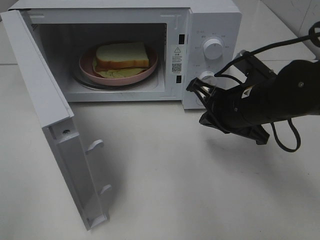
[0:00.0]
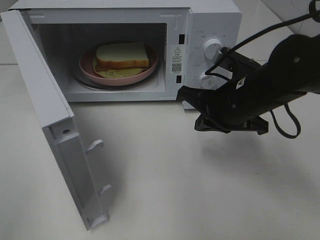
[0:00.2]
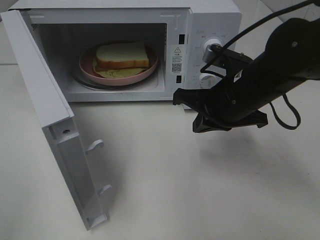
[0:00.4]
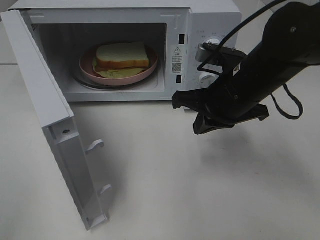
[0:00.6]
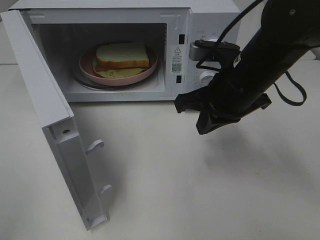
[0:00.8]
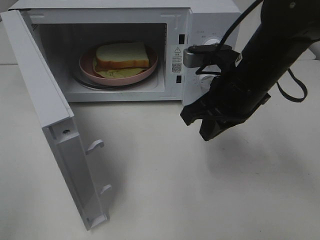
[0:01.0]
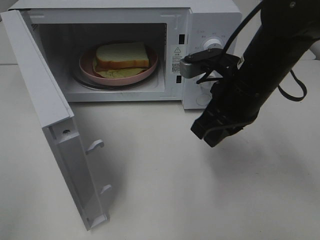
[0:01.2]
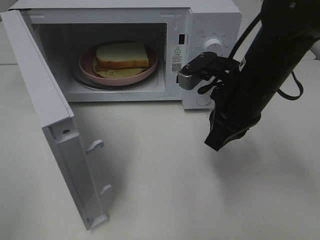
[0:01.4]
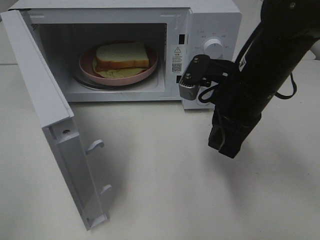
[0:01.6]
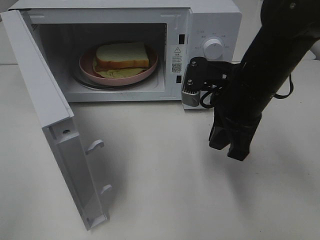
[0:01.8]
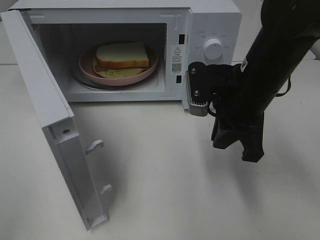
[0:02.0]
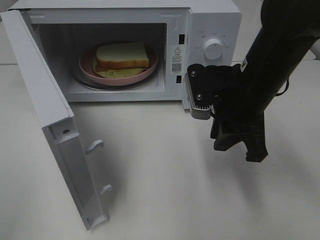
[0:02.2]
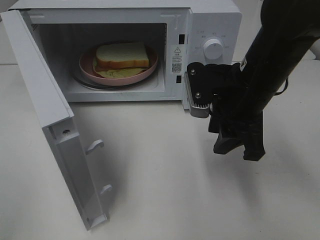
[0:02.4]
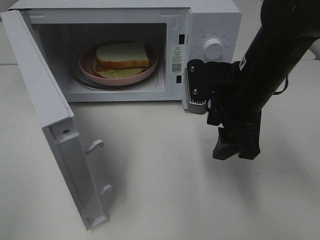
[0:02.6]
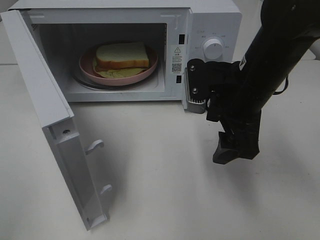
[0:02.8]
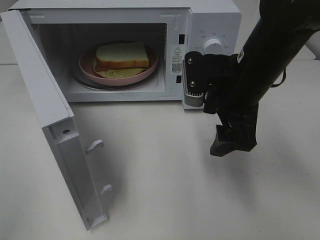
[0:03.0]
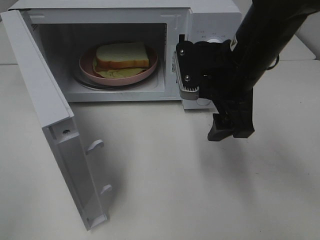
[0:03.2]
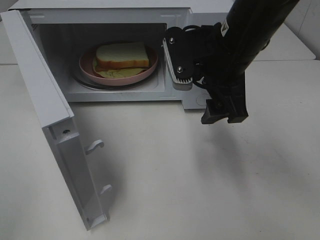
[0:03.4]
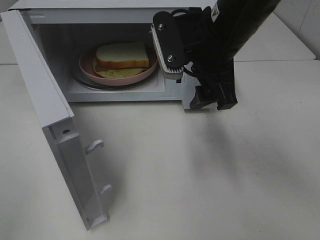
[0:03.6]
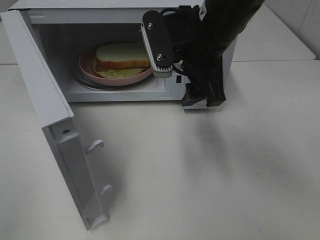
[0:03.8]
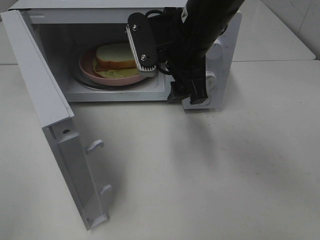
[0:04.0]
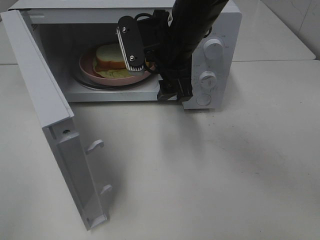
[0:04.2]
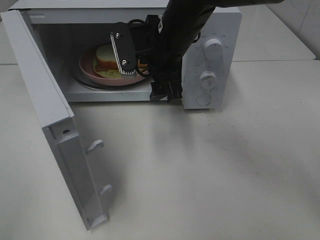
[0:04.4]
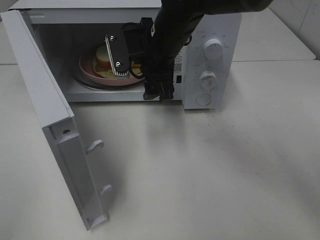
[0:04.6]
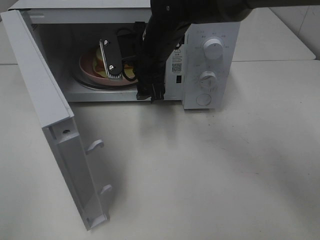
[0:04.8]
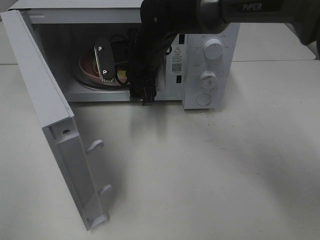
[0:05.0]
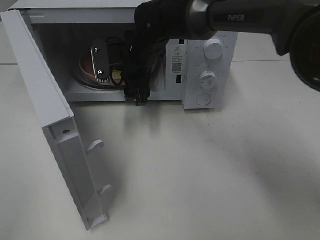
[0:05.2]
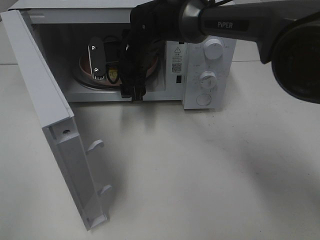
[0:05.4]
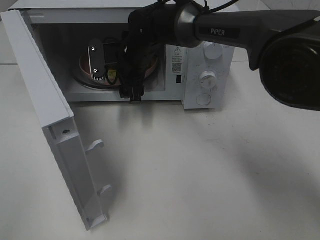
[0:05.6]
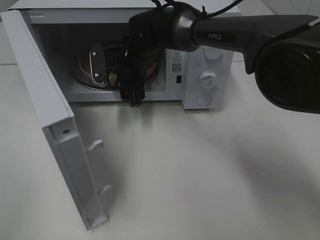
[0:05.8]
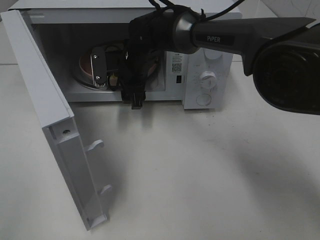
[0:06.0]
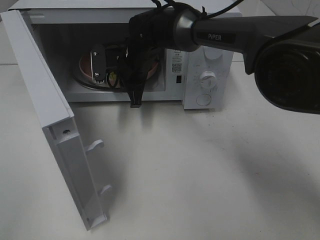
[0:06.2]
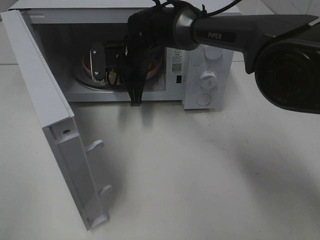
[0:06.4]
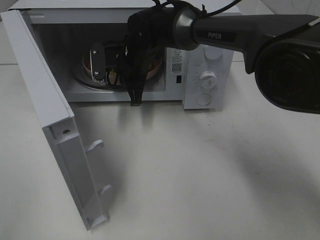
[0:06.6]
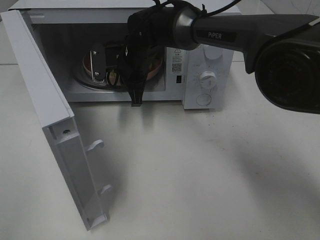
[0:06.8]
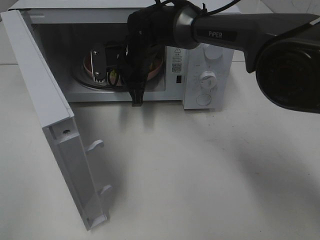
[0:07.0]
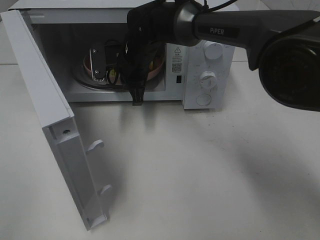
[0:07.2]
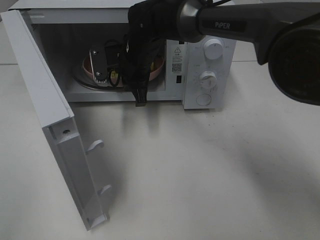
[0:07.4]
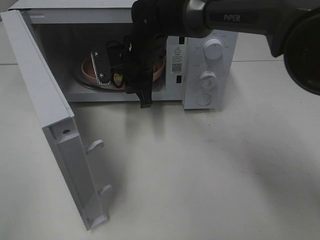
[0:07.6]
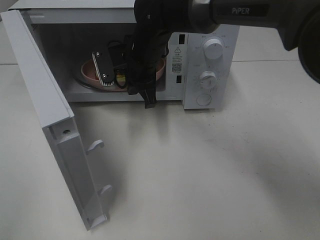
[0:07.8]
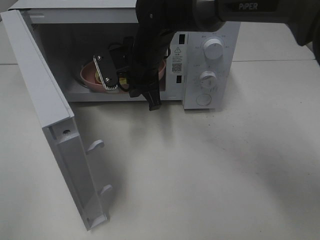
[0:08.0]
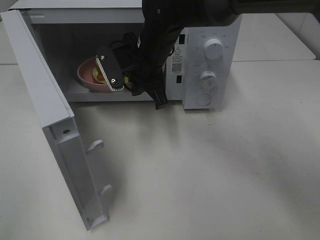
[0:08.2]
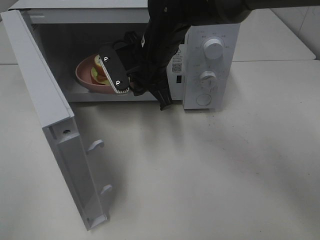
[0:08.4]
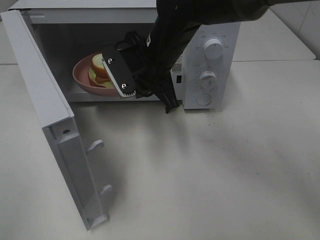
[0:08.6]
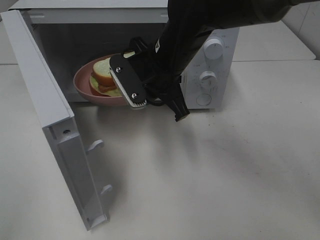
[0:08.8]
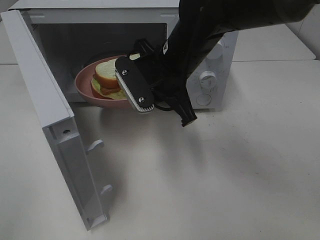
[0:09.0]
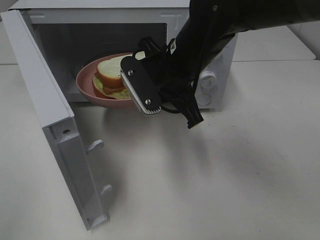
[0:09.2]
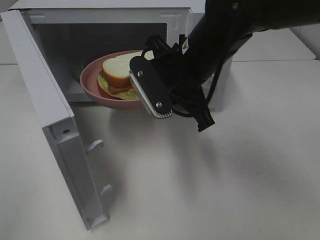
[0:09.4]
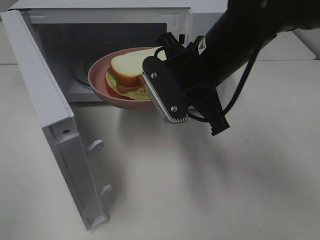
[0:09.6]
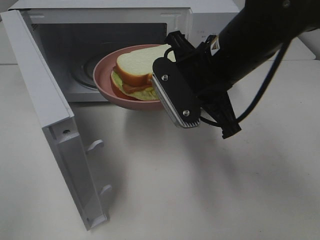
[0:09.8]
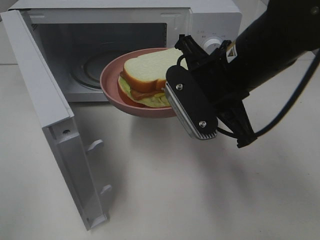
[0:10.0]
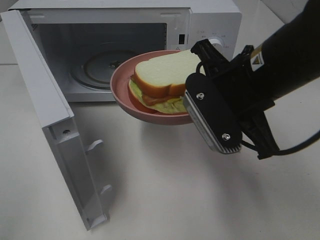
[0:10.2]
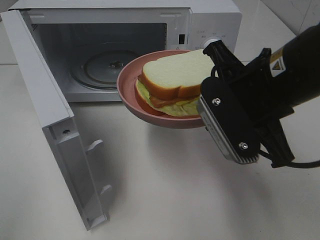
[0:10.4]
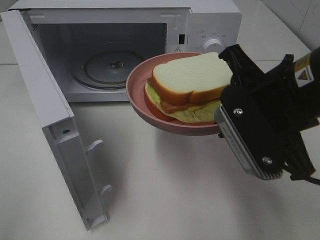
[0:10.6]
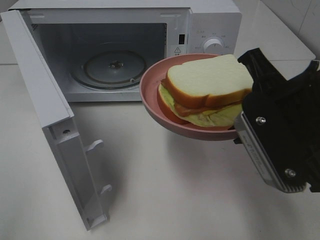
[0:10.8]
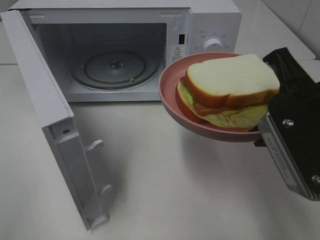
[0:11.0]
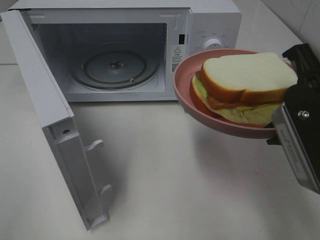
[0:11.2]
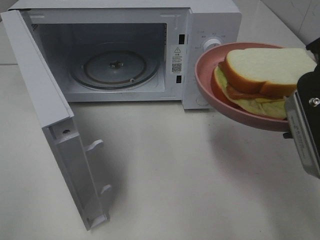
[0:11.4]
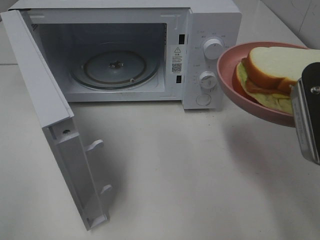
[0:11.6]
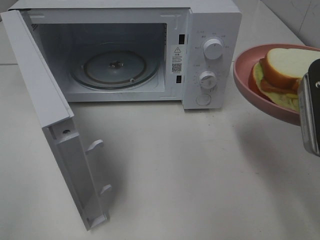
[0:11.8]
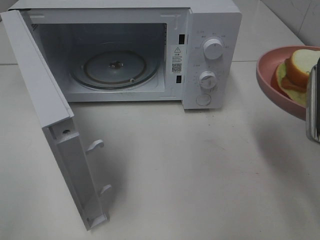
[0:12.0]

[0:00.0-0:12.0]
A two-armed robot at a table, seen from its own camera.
Task of the whole recording: Heat Sandwich.
Step, 0:00.0 to 0:06.8: Right hand: grab the plate with the sandwich.
0:01.6 to 0:03.0: The right gripper opens up.
0:03.0 to 0:04.4: The right gripper moves to the left and forward, some 15 cm.
0:04.4 to 0:06.0: The right gripper goes some 15 cm downward, forward and to the left.
0:06.0 to 0:07.6: The right gripper closes.
0:07.6 to 0:09.0: The right gripper moves backward and to the right, roughly 10 cm.
0:09.0 to 0:10.4: The right gripper heads backward and to the right, covering about 15 cm.
0:10.4 to 0:12.0: The right gripper is displaced to the right and backward by approximately 10 cm.

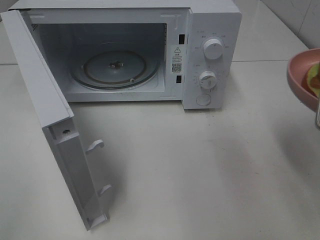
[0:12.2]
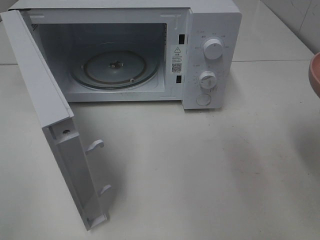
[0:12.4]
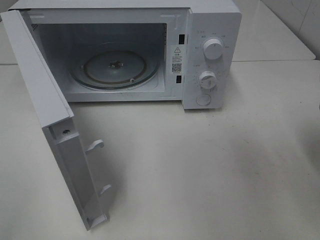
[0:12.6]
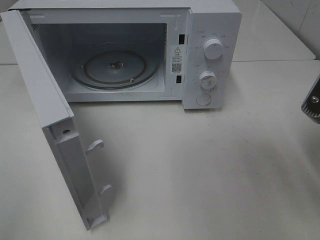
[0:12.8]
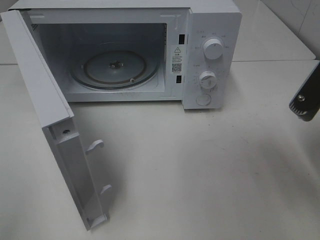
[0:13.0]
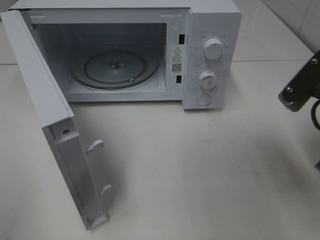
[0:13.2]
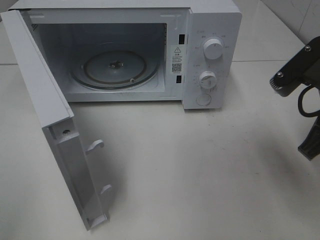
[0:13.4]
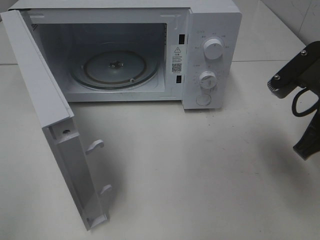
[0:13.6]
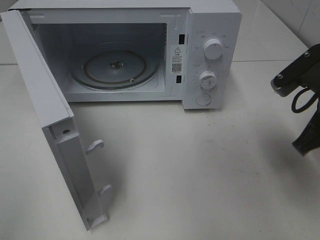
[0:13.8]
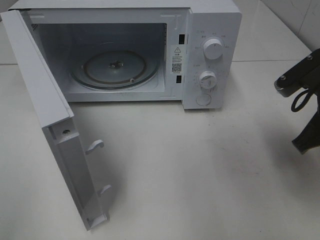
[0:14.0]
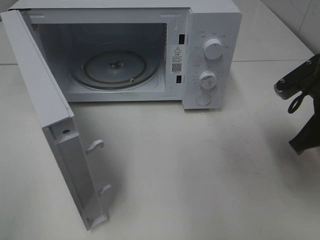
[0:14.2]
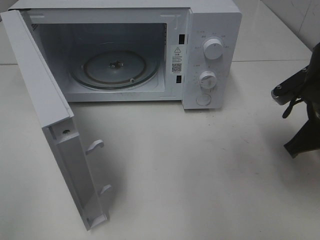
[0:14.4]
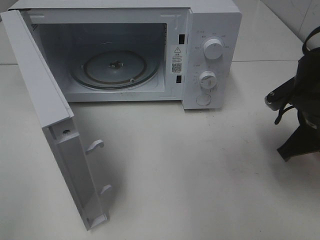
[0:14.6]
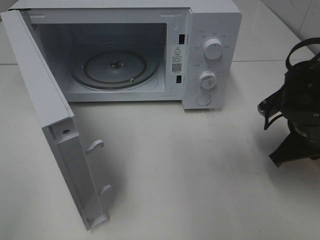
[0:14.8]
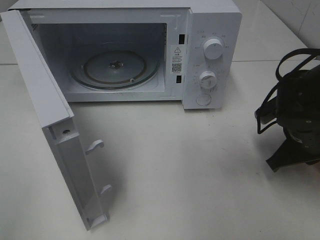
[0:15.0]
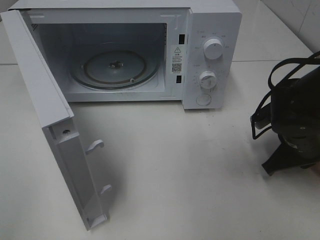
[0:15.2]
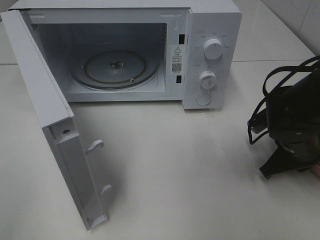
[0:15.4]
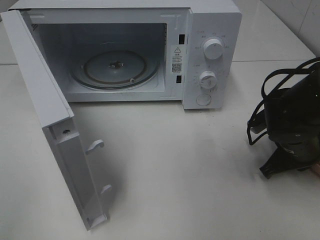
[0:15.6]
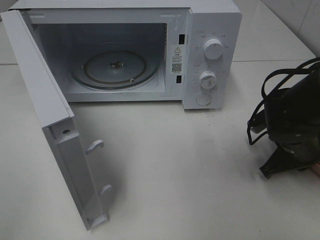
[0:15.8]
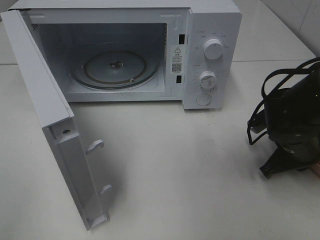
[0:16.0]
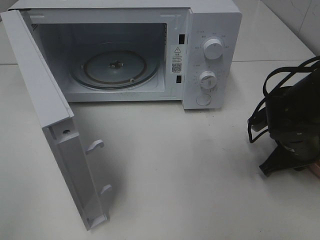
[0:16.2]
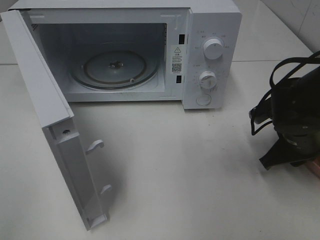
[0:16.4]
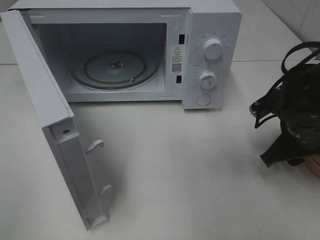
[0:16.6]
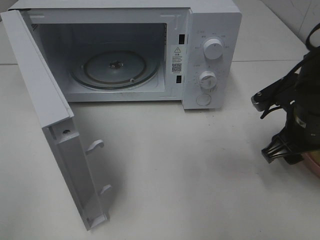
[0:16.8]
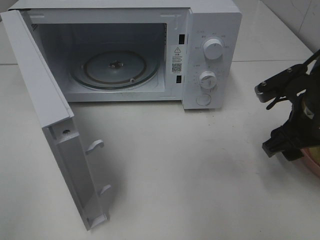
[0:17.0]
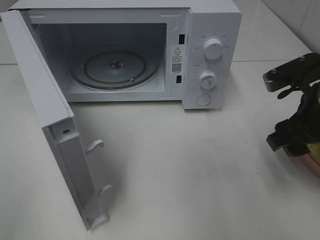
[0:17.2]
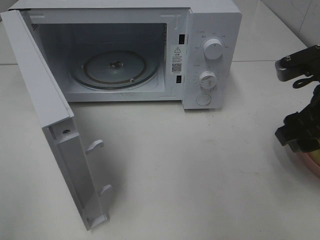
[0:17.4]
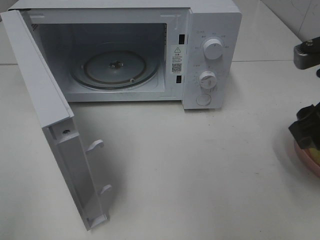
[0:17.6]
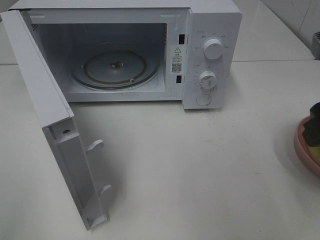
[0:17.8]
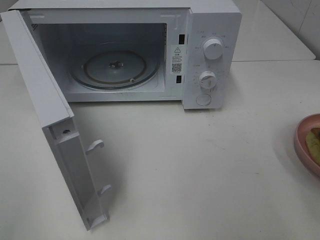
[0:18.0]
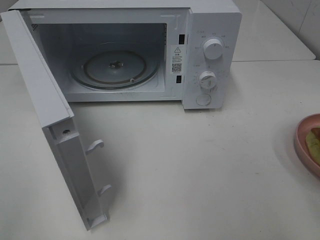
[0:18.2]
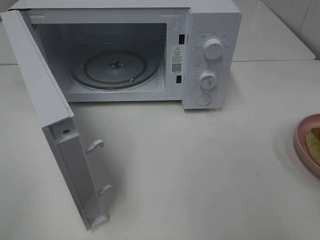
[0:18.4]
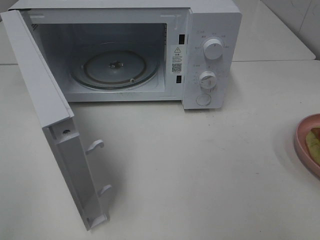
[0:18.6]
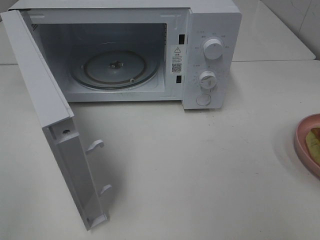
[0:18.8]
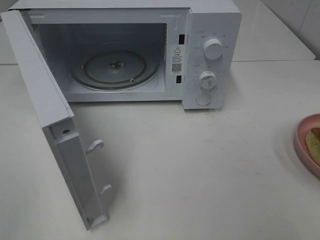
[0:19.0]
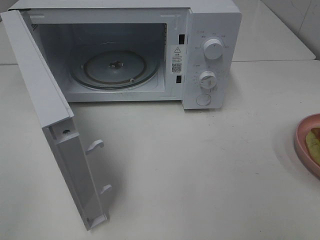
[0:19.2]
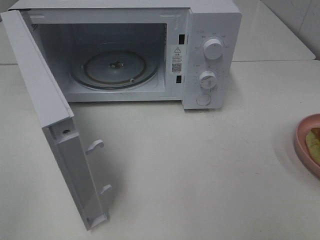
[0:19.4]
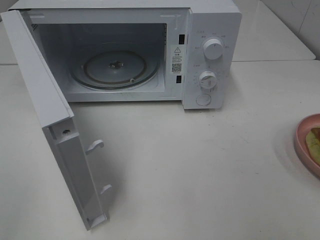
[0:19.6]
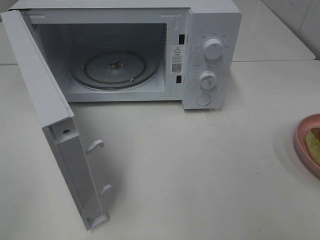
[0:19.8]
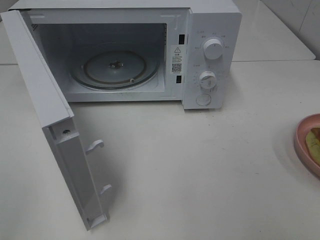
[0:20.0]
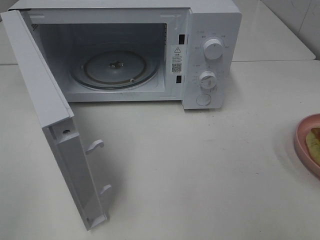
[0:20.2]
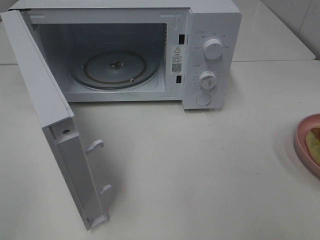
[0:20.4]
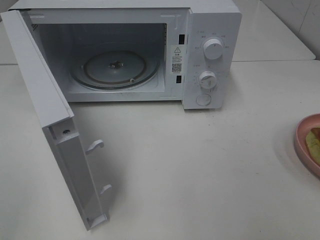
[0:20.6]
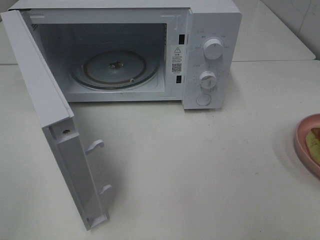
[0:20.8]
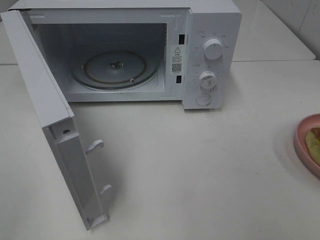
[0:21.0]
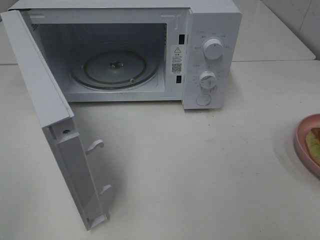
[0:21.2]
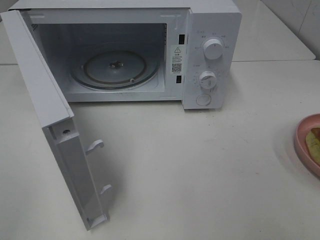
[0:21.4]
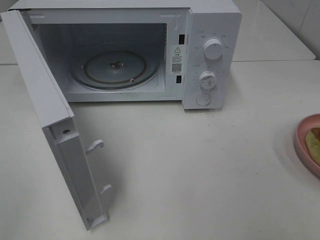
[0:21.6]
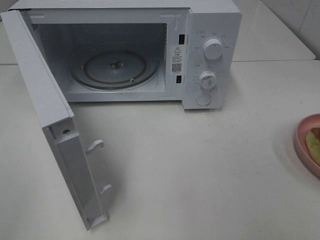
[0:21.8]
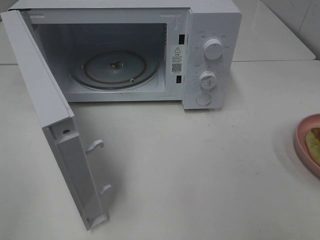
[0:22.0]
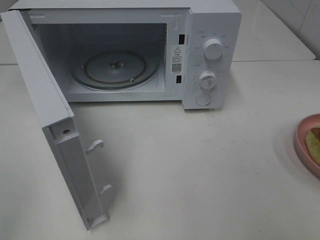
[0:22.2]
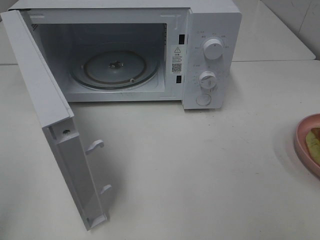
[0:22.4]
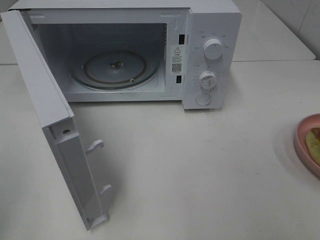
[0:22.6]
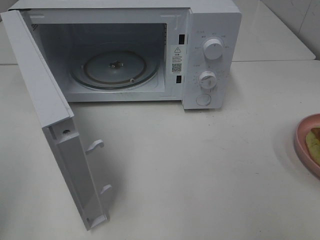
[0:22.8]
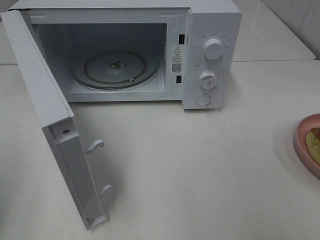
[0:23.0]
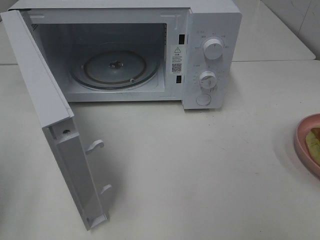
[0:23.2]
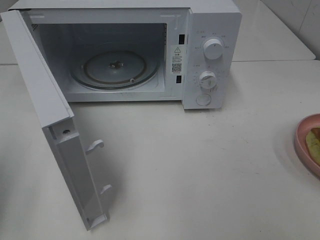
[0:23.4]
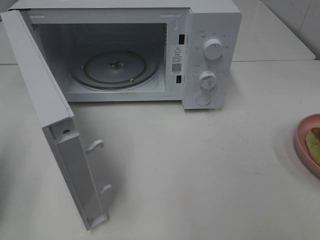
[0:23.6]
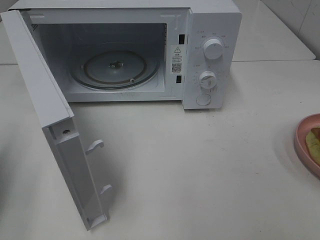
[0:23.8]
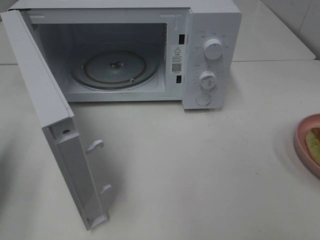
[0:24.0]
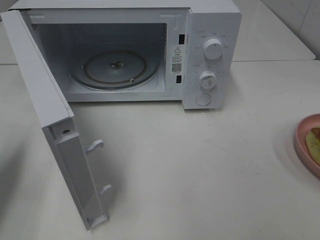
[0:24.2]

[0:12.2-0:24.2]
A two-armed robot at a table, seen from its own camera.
Task of the whole recording: Heat Sandwich.
Step, 0:12.2 to 0:17.6: Right hand: place the plate on the table.
0:12.2 to 0:13.8: The right gripper is displaced forward and downward by roughly 10 cm.
0:13.8 to 0:15.2: The right gripper travels downward by some 10 cm.
0:15.2 to 0:16.6: The right gripper opens its fingers.
0:16.6 to 0:18.2: The right gripper travels upward and backward by some 25 cm.
0:19.8 to 0:21.2: The two grippers keep their place.
0:22.6 to 0:24.2: The left gripper goes about 15 cm forward and downward.
